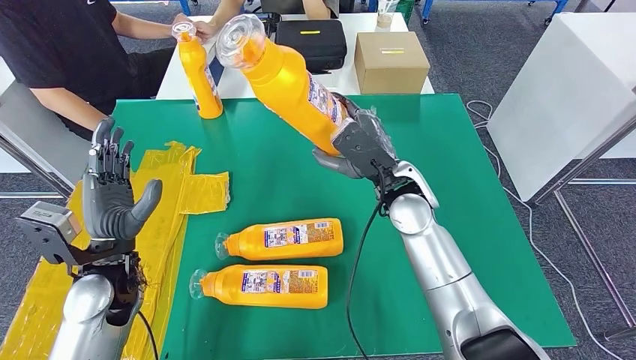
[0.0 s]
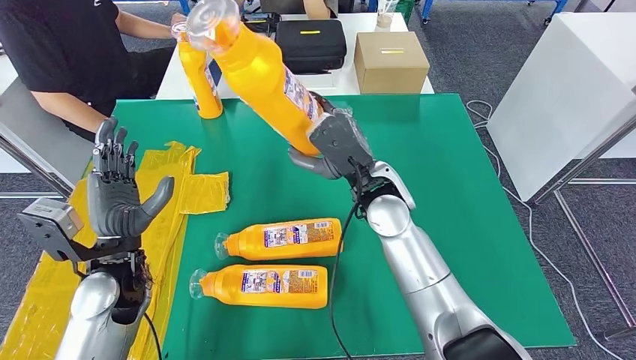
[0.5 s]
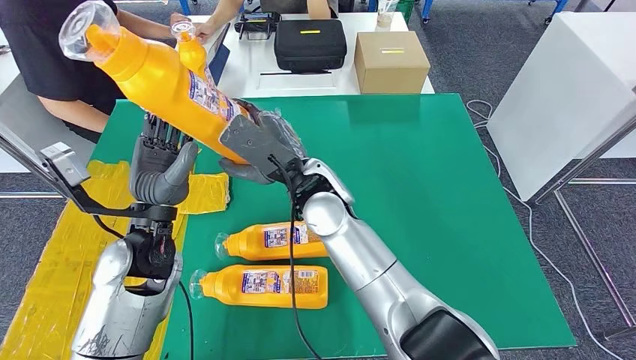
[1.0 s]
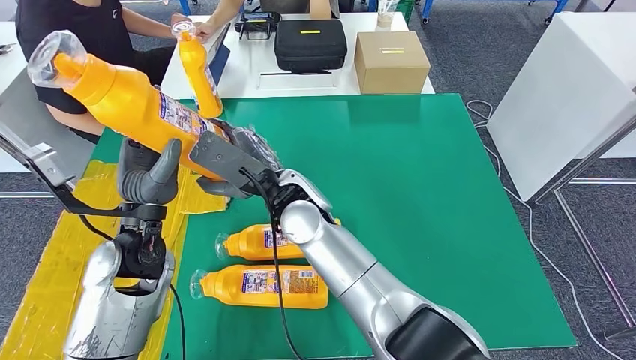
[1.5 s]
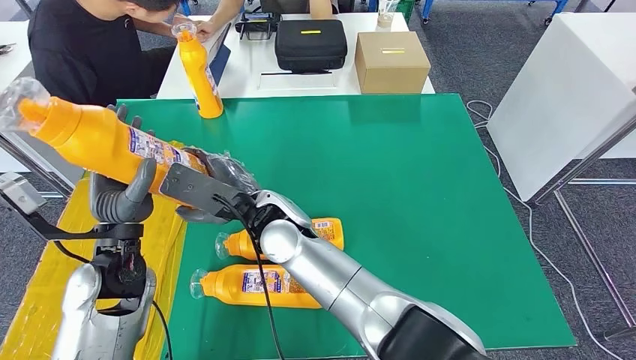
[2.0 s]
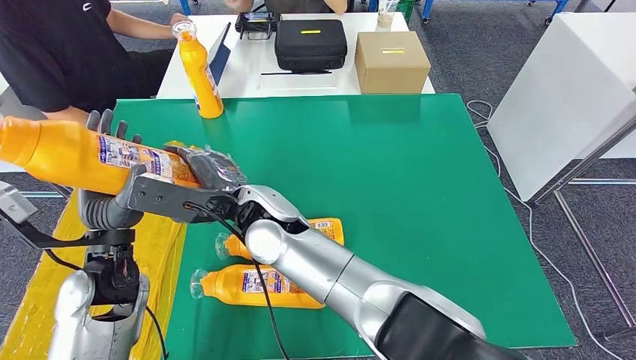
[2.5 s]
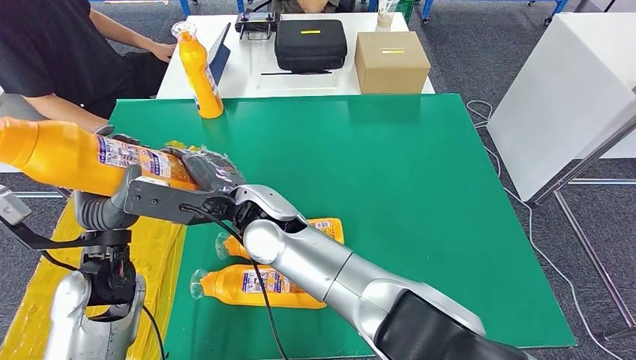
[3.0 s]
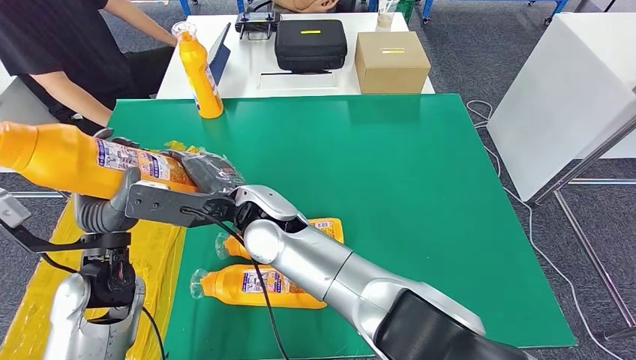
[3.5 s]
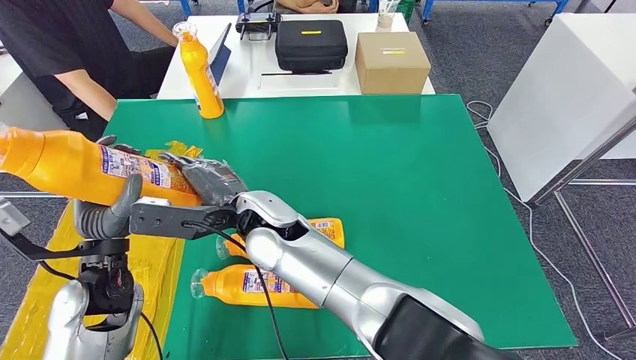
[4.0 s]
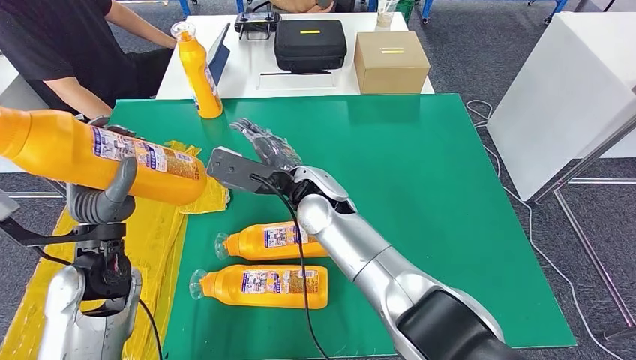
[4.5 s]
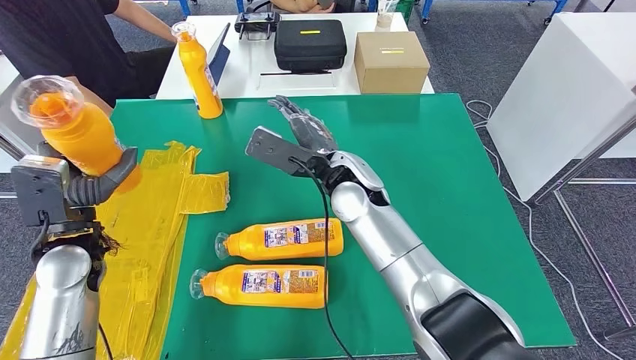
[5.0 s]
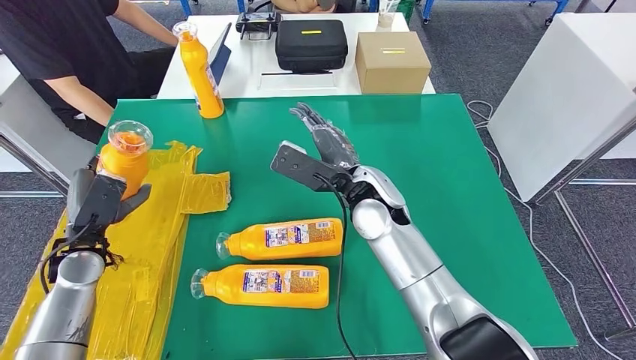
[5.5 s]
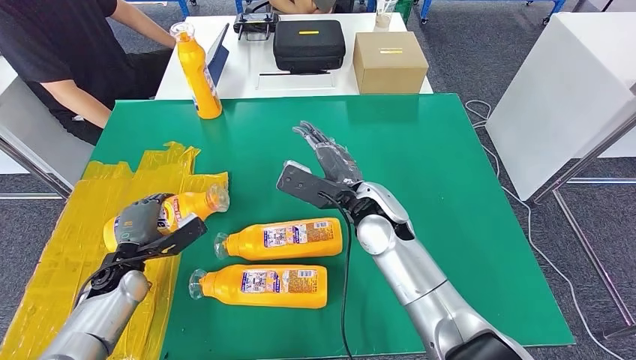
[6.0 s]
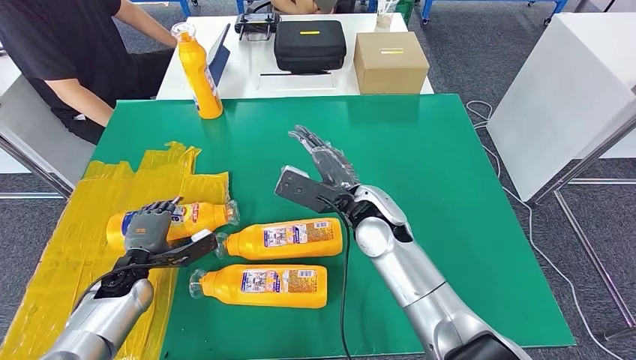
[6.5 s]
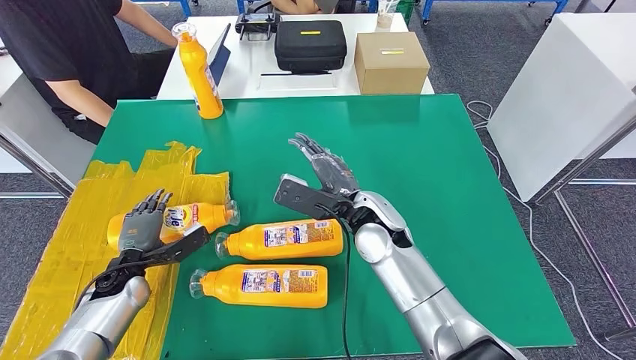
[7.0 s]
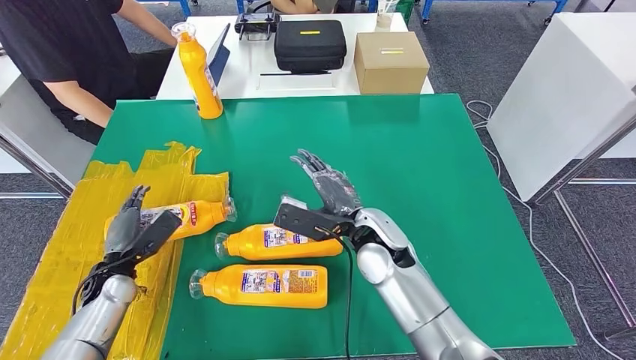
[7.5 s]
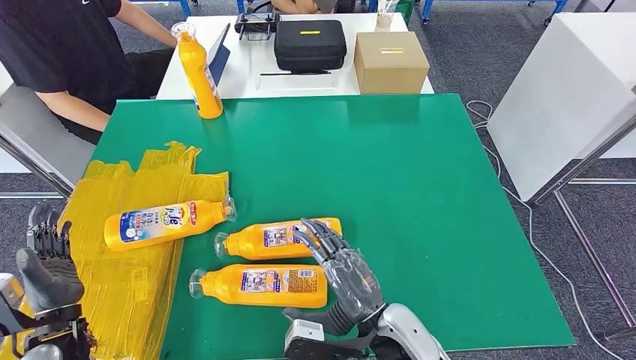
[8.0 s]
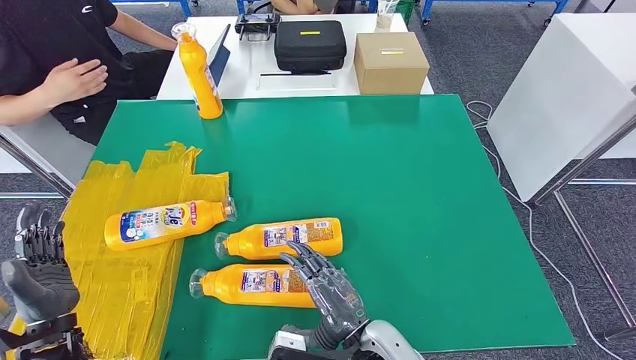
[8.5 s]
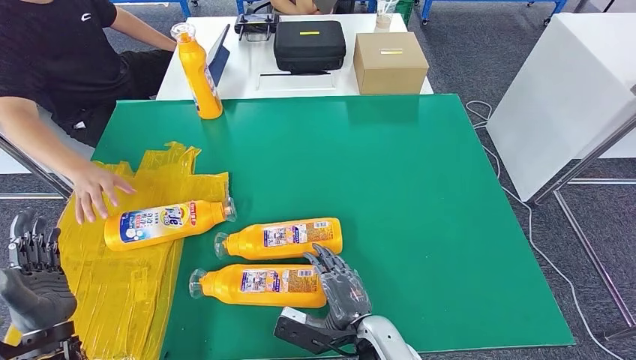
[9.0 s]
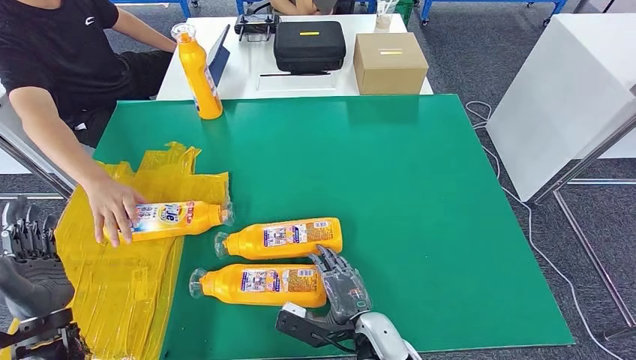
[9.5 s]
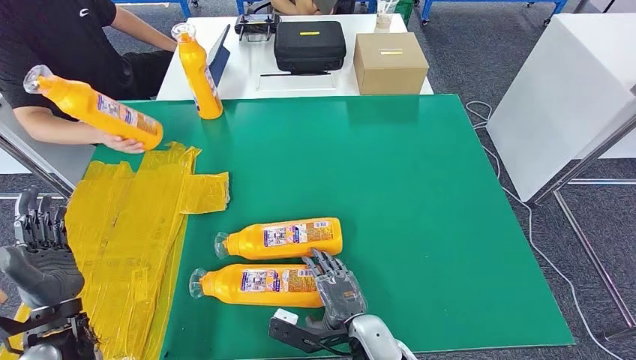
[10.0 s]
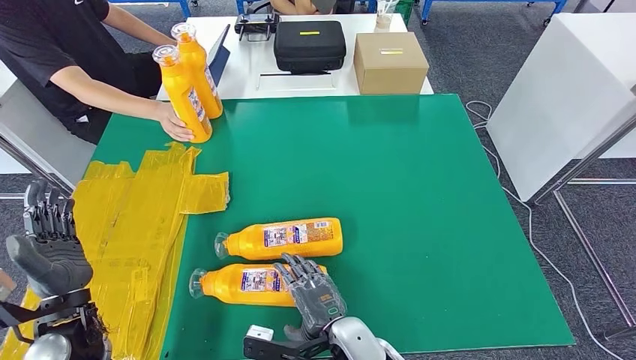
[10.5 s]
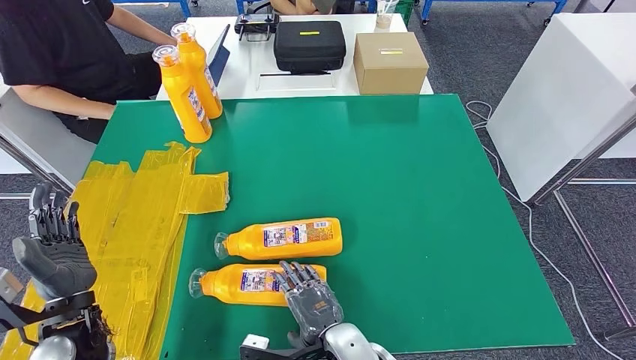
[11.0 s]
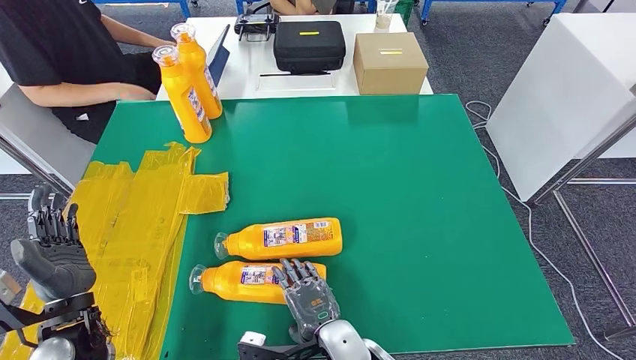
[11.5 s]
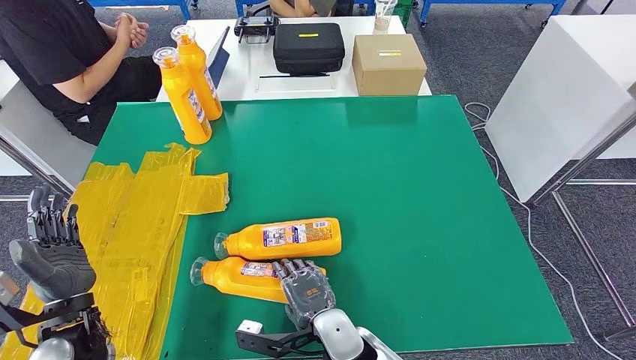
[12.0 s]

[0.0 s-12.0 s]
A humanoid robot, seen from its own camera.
Step, 0.0 to 7.0 s: Flip the bottle to face forward.
8.0 to 10.0 s: The right hand travels downward by some 10 cm.

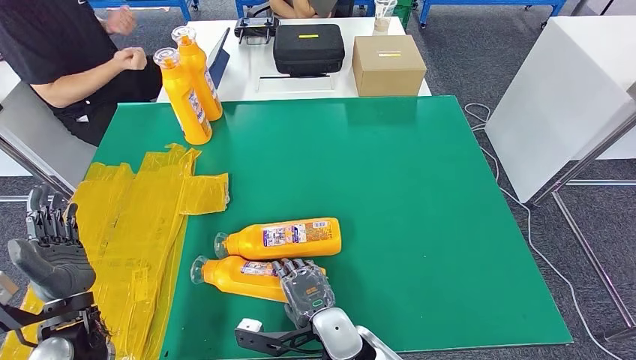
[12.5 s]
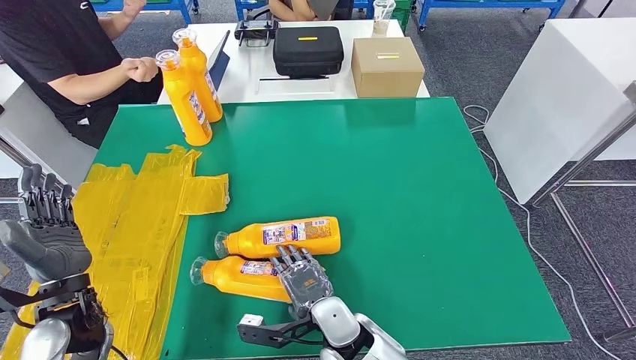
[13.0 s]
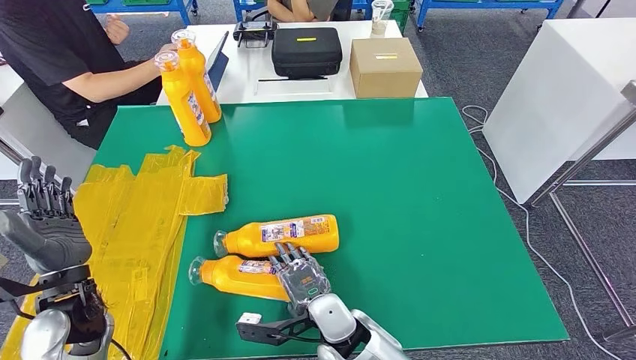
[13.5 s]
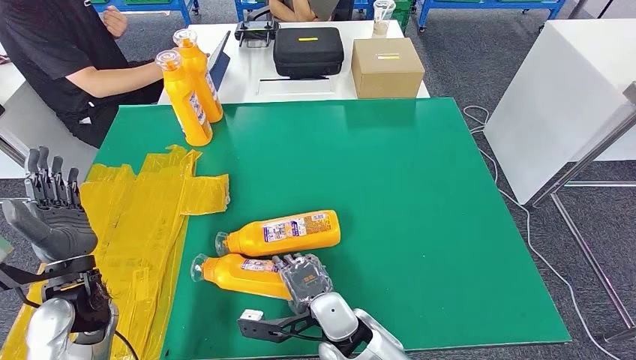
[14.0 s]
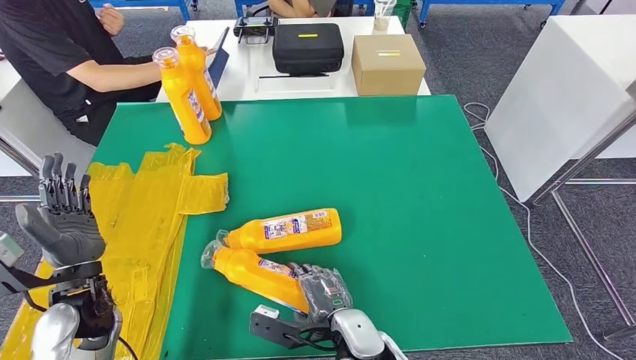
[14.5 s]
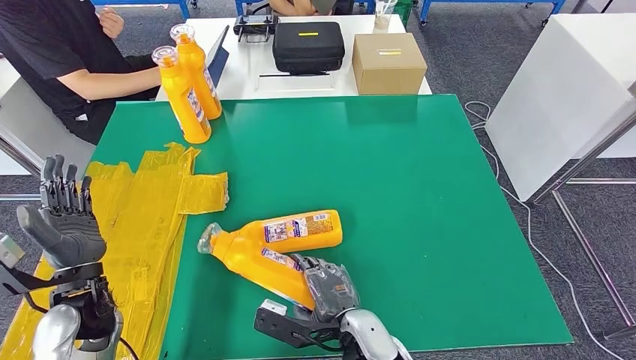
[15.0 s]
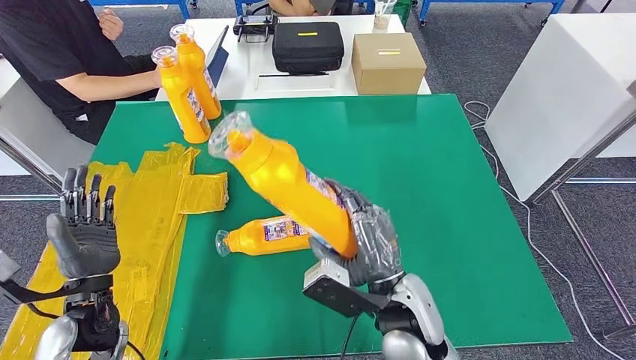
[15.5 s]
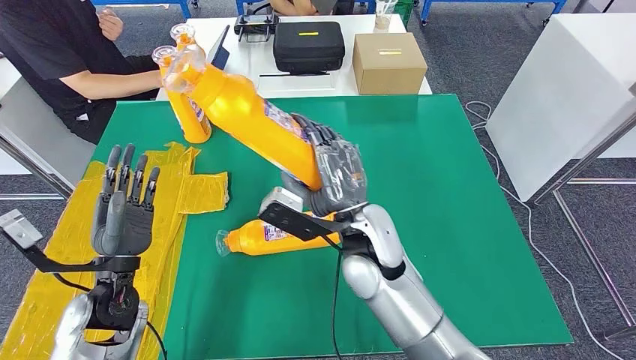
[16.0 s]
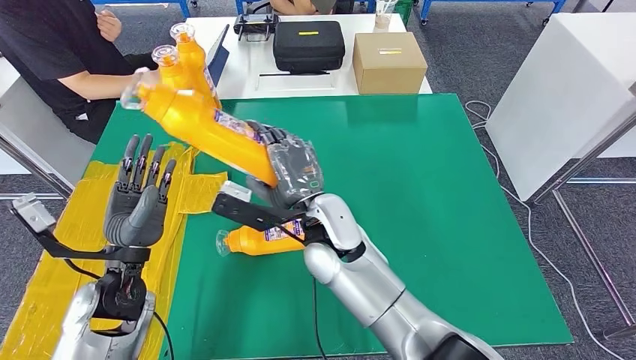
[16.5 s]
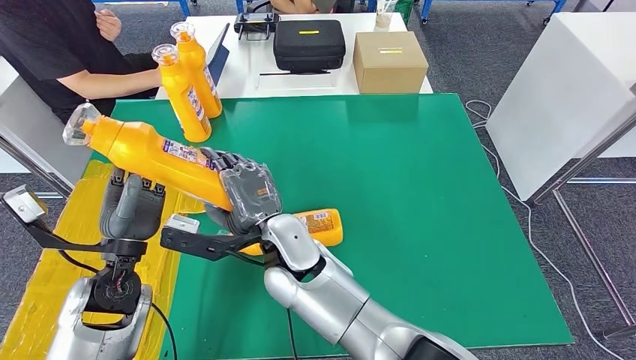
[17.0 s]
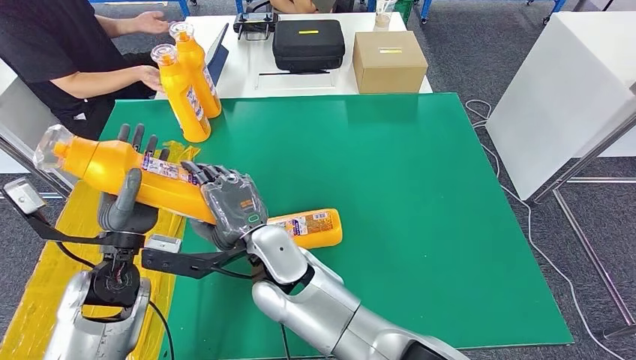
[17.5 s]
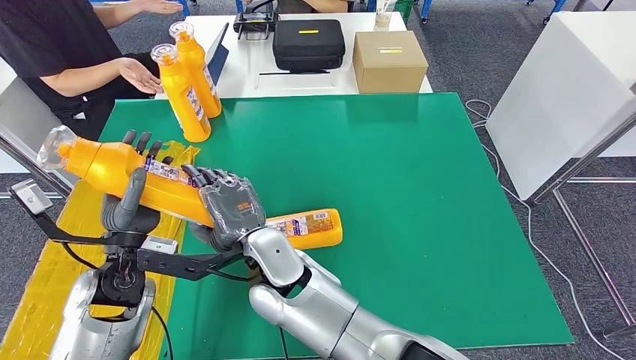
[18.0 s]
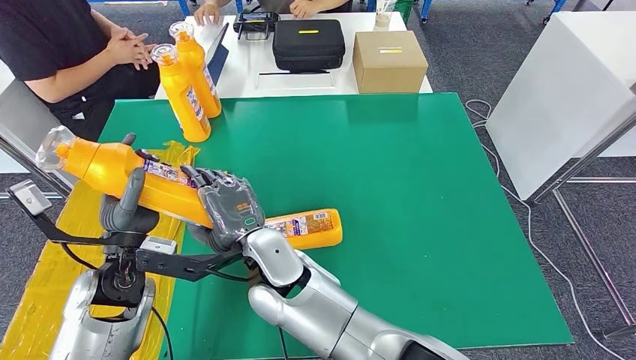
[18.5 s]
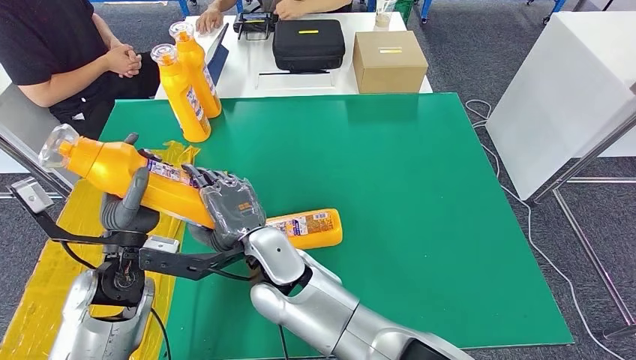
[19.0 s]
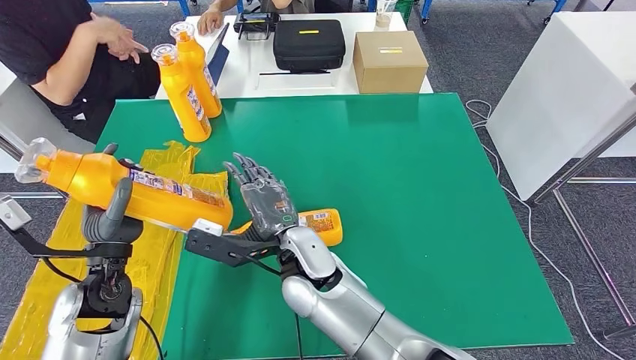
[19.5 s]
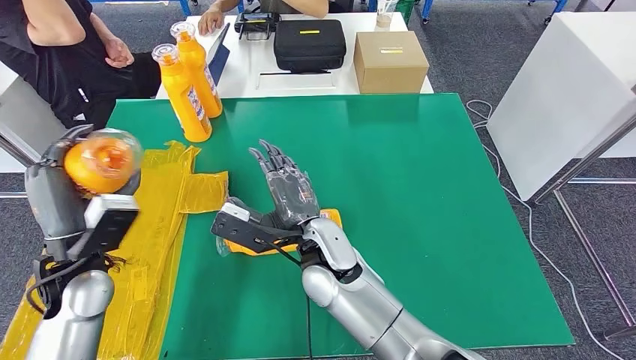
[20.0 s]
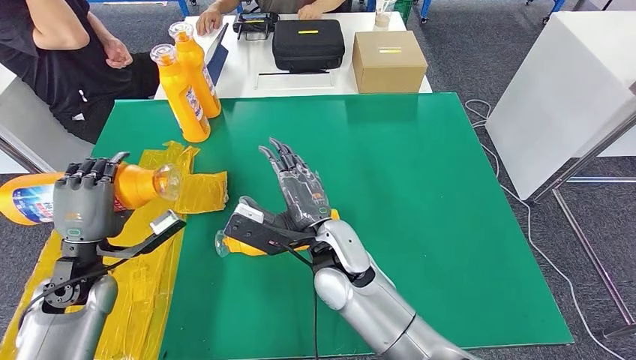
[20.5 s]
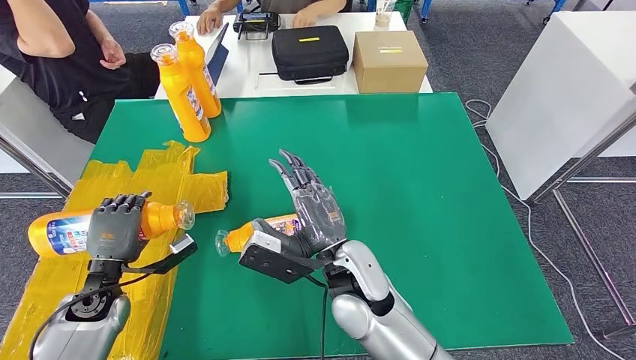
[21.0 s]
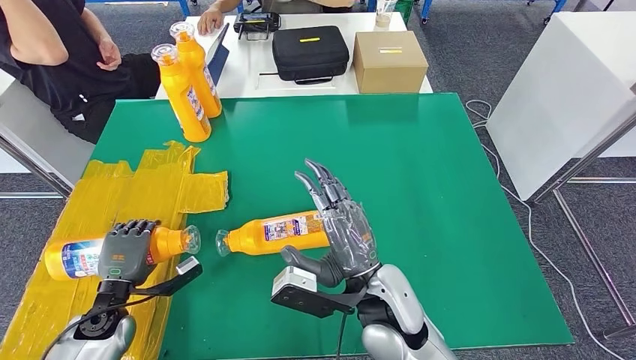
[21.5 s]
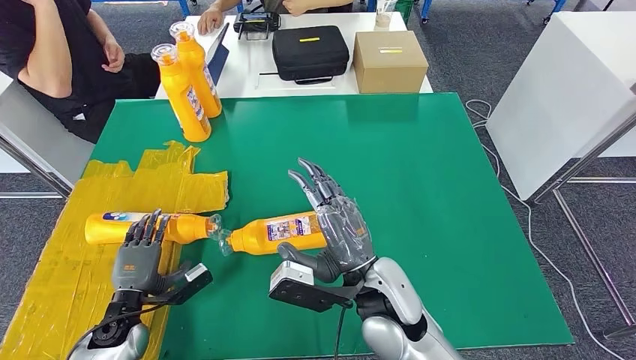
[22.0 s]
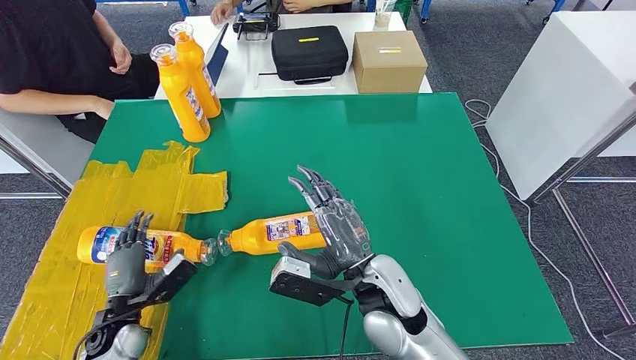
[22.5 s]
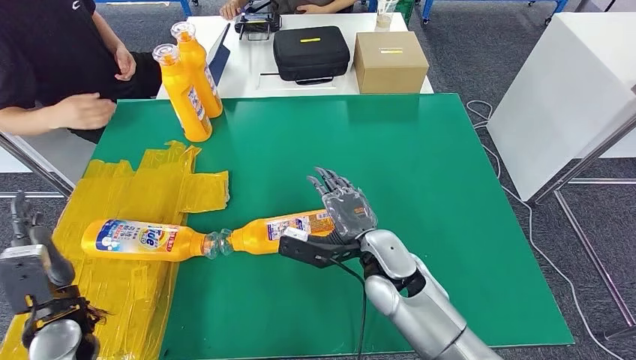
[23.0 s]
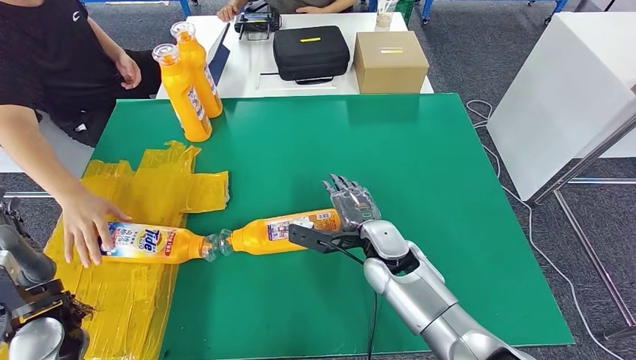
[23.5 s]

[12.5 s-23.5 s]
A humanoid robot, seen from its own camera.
Step, 15.0 to 18.5 s: Pick up the bottle from the table.
12.5 to 14.5 s: There are only small adjustments of the hands.
